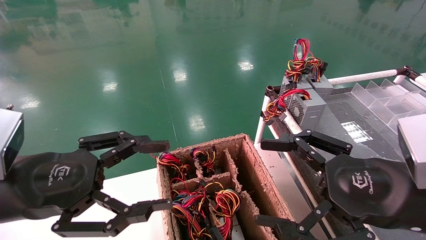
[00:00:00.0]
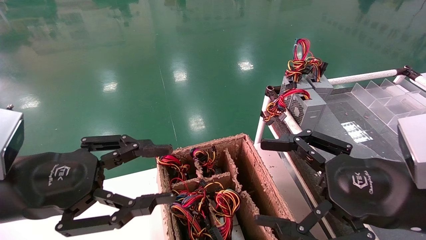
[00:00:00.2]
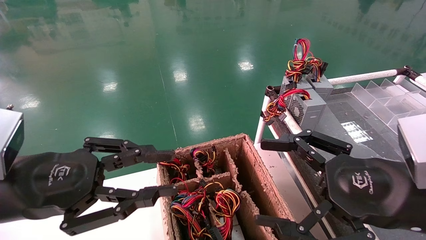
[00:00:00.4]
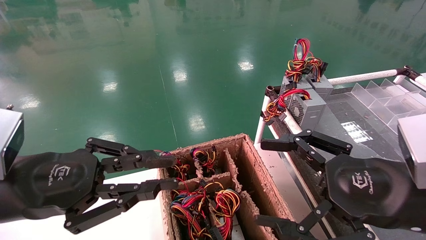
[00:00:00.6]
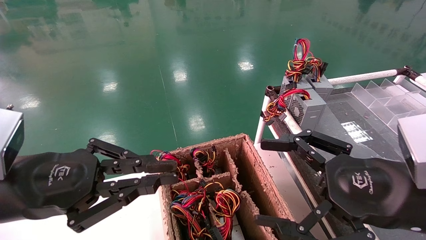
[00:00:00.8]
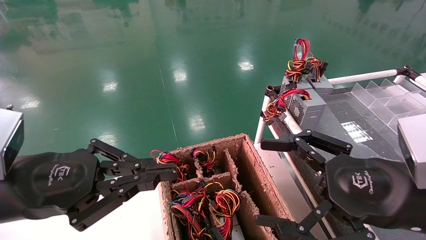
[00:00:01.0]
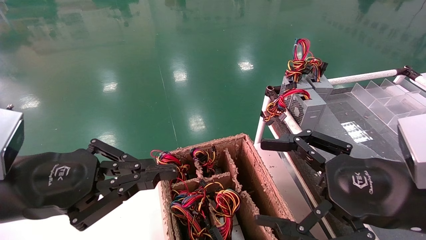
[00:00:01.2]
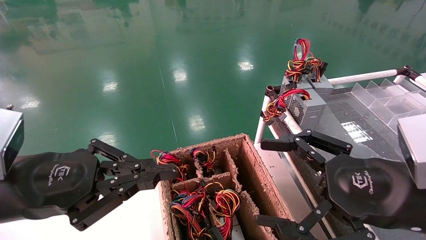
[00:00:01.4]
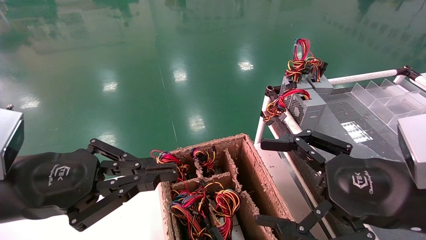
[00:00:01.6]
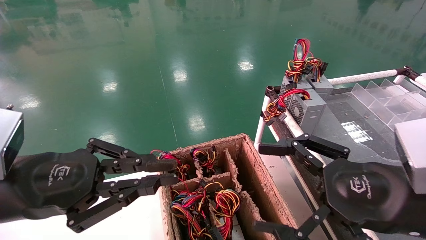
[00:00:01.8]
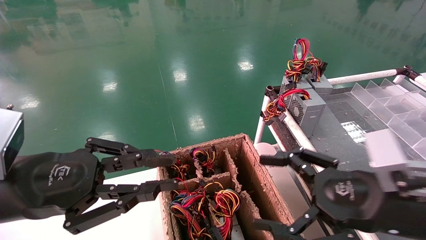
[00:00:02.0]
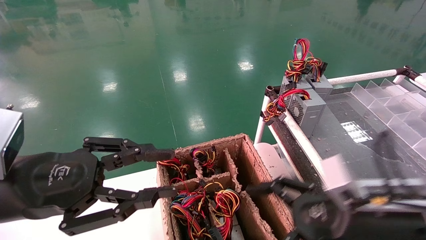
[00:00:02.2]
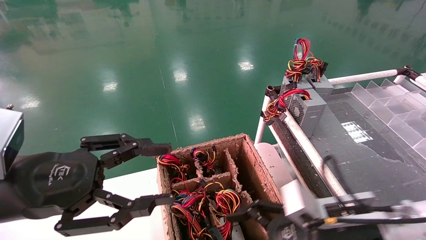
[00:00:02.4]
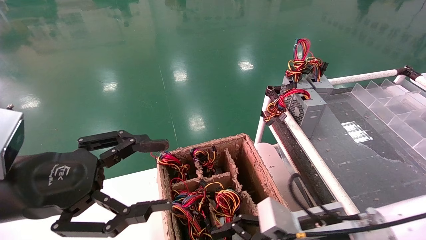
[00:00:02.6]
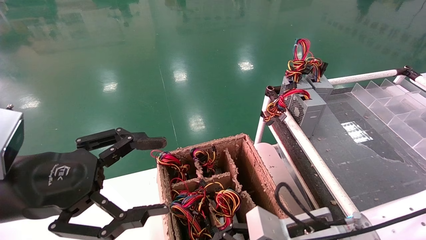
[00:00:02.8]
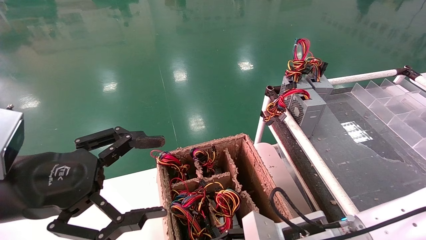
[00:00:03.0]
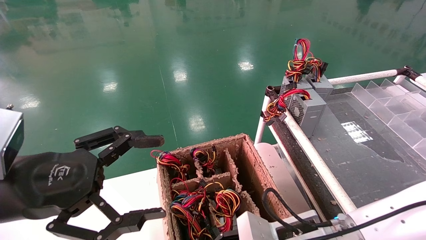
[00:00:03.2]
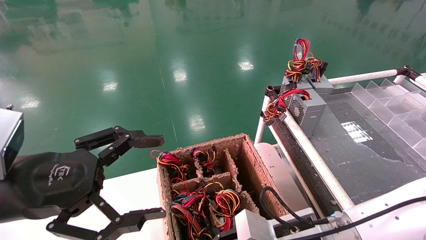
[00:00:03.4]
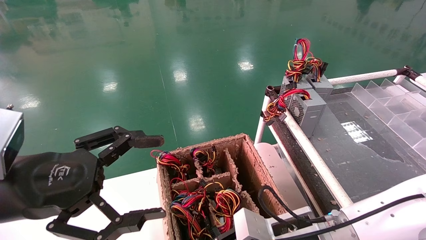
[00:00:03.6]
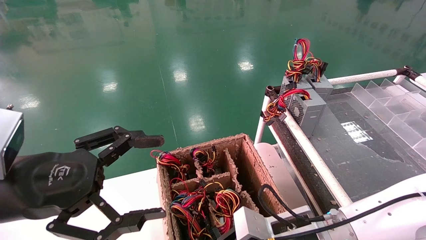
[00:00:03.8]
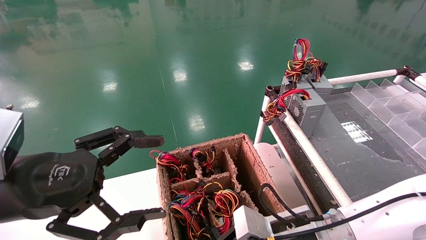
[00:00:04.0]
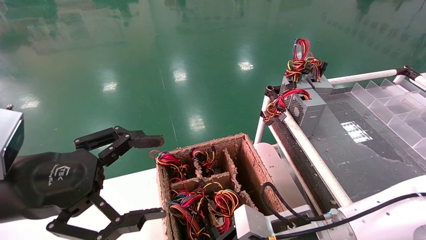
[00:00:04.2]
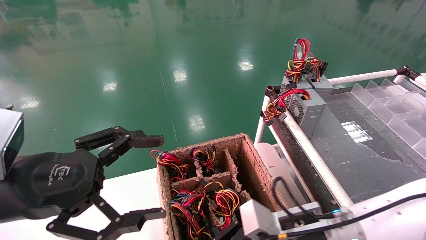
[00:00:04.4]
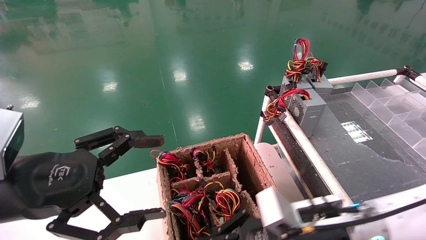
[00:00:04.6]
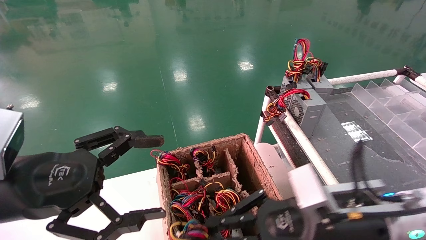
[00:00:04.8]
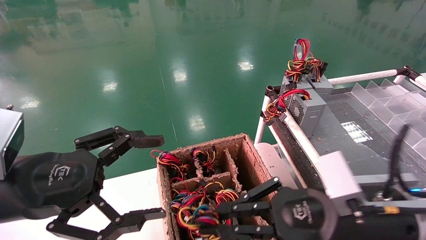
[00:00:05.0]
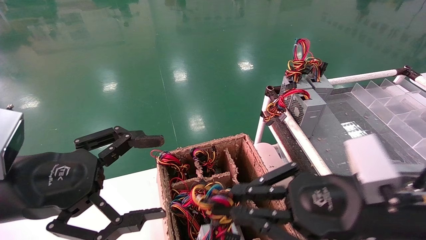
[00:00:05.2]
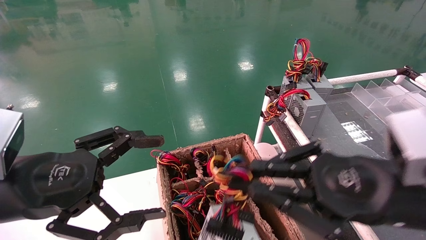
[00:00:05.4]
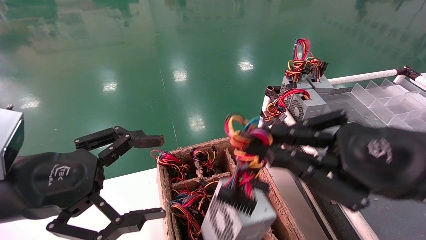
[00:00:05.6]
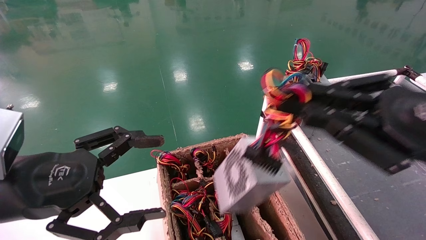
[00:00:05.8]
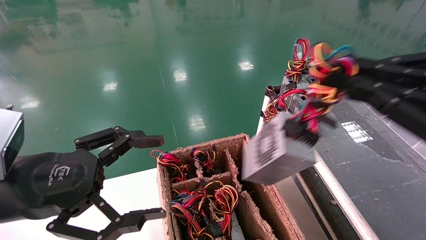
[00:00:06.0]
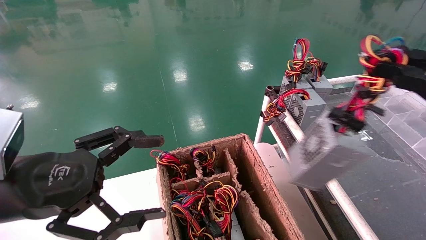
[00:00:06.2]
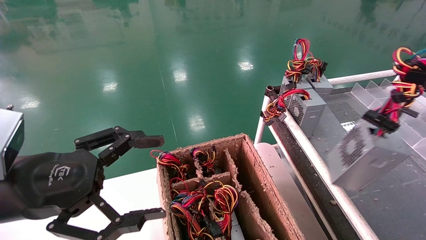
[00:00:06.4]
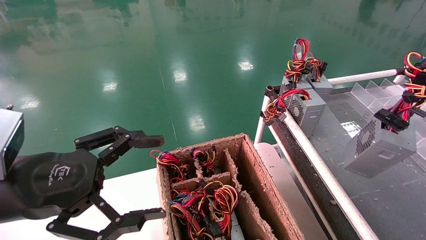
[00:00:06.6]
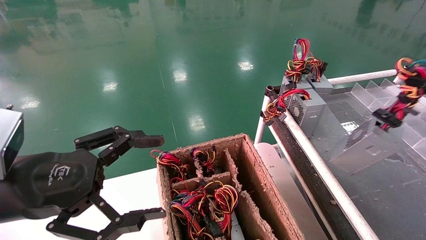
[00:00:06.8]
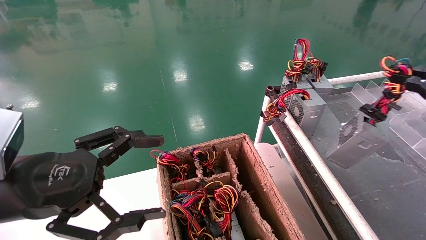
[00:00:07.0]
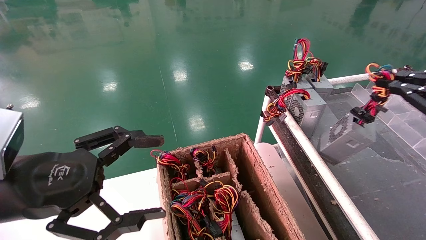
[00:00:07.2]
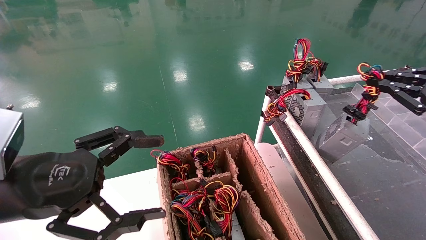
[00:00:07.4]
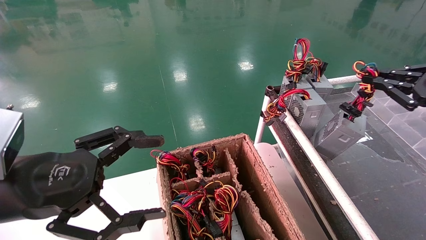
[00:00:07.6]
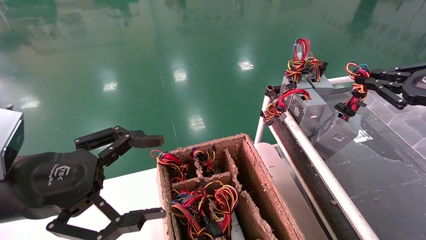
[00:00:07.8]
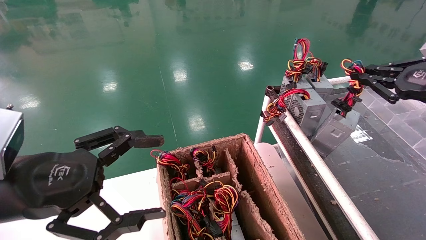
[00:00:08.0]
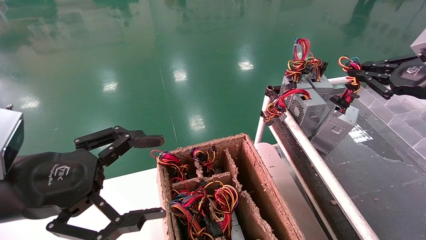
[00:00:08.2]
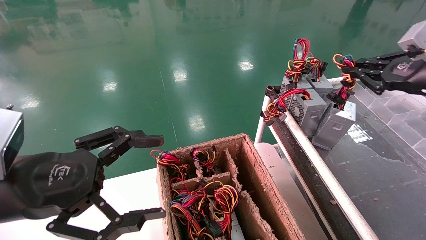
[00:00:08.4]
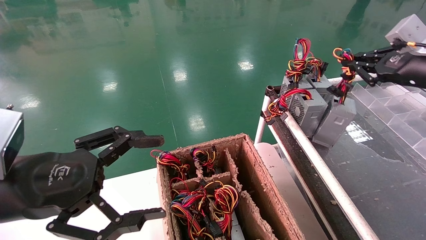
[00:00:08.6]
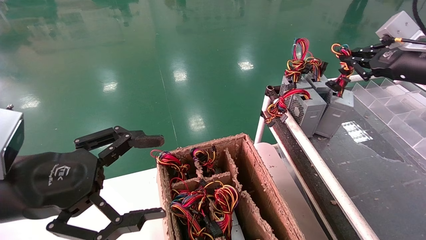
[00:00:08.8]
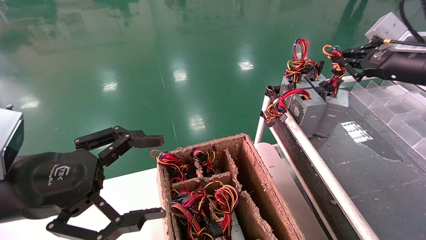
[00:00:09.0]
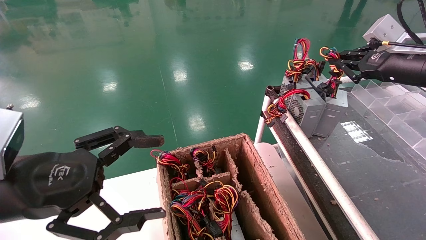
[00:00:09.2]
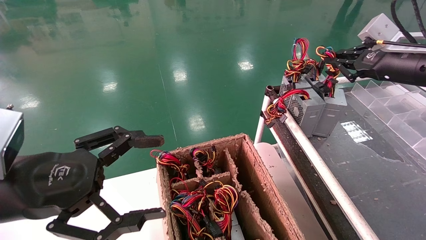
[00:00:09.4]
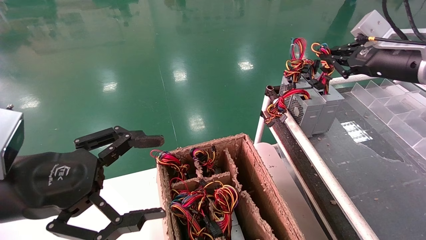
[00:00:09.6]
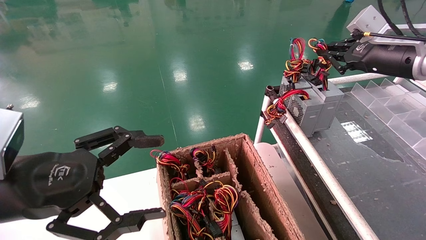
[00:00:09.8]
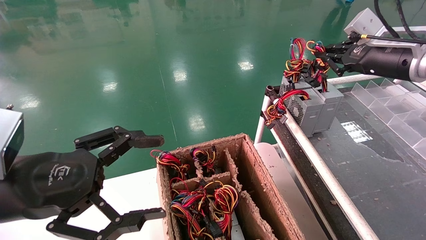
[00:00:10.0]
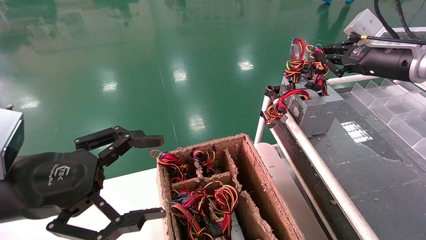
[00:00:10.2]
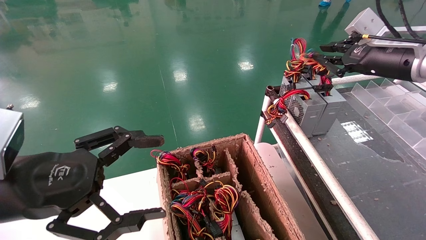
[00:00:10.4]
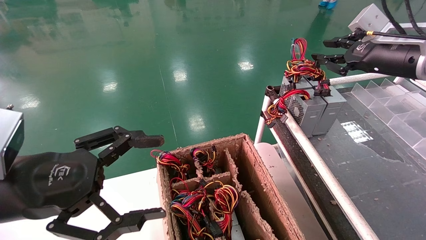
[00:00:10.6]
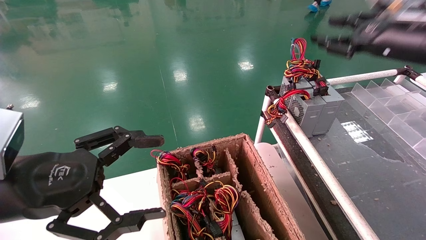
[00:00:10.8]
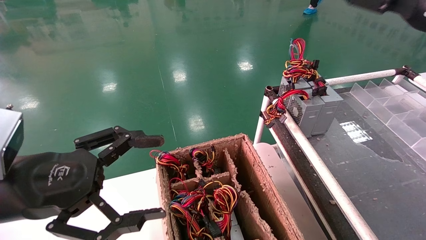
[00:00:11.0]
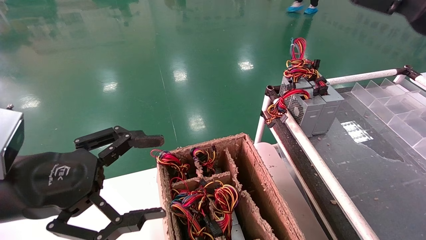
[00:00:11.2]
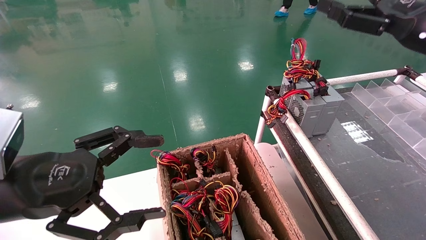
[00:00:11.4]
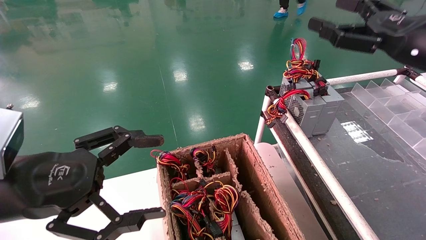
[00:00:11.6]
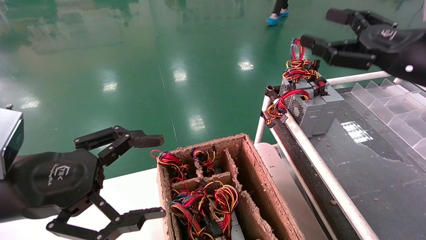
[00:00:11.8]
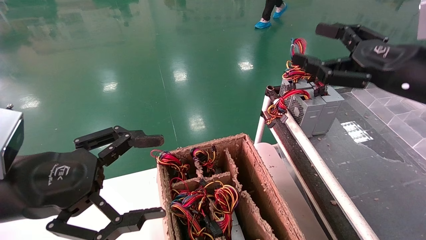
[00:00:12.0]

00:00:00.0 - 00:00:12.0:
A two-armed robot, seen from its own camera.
Step, 00:00:01.2 - 00:00:04.2: Grab and lift the power supply from the large box.
Step, 00:00:04.4 - 00:00:10.2: Place the power supply on the operating table.
00:00:00.0 - 00:00:01.6: The left gripper closes up.
00:00:01.6 - 00:00:03.0: The right gripper goes some 20 cm downward, to the left and forward. The left gripper opens its fingers.
00:00:03.0 - 00:00:04.4: The right gripper closes up.
00:00:04.4 - 00:00:06.0: The right gripper shifts about 30 cm upward, to the right and backward.
00:00:06.0 - 00:00:07.6: The right gripper goes about 15 cm forward and to the right.
00:00:07.6 - 00:00:09.0: The right gripper heads forward and to the left, covering approximately 10 cm.
00:00:09.0 - 00:00:10.4: The grippers move only a little.
00:00:10.4 - 00:00:12.0: The right gripper shifts about 10 cm backward, and opens its fingers.
